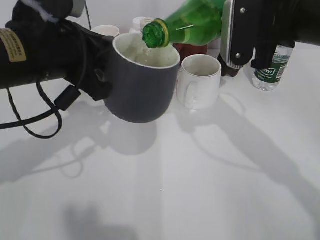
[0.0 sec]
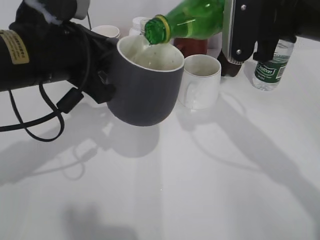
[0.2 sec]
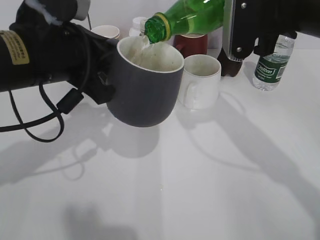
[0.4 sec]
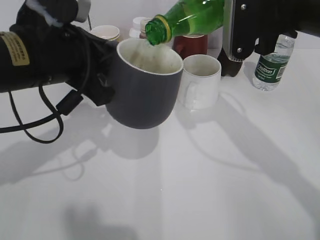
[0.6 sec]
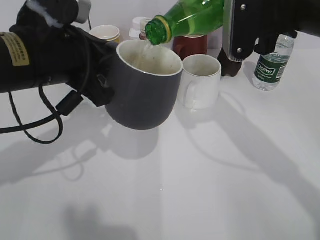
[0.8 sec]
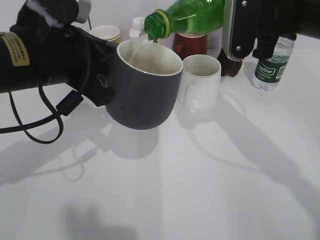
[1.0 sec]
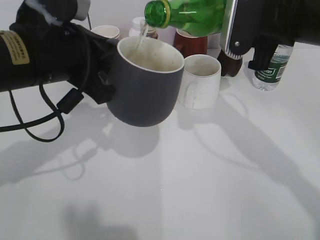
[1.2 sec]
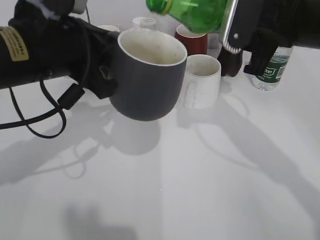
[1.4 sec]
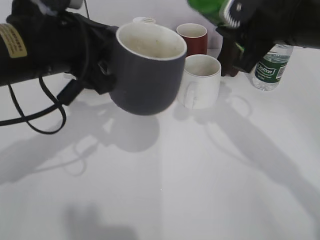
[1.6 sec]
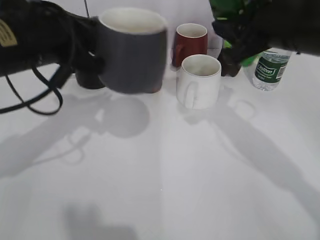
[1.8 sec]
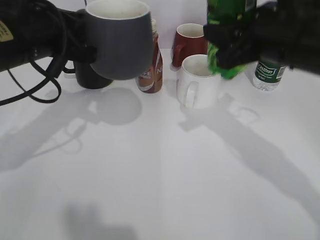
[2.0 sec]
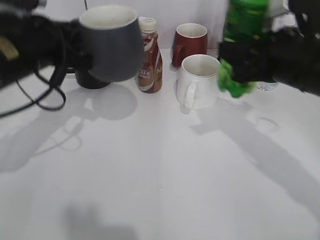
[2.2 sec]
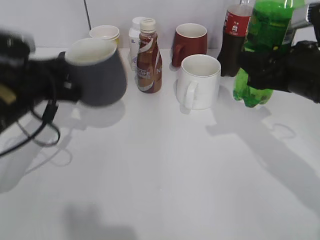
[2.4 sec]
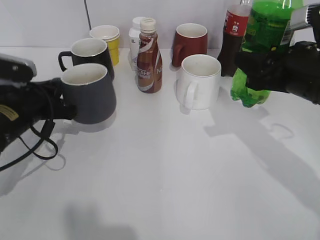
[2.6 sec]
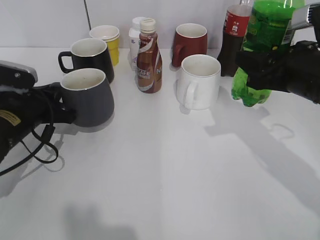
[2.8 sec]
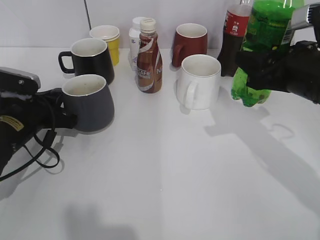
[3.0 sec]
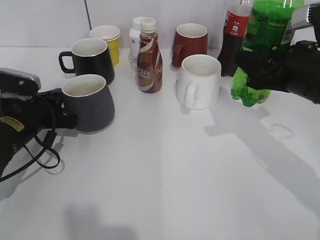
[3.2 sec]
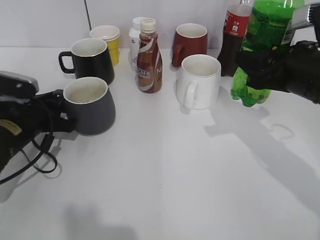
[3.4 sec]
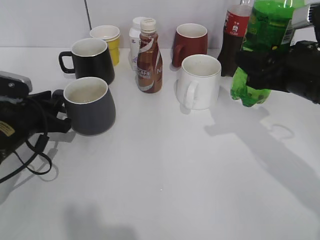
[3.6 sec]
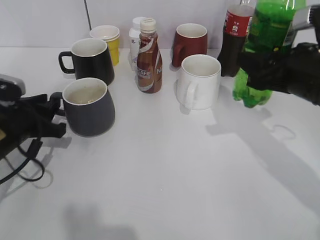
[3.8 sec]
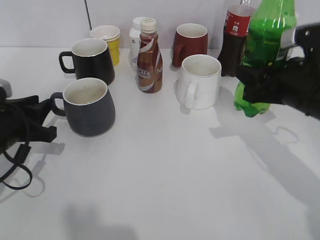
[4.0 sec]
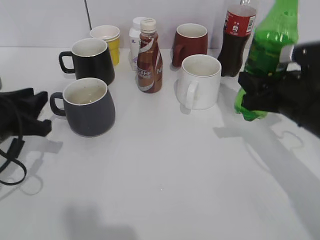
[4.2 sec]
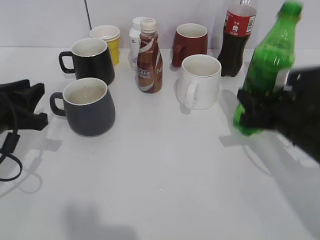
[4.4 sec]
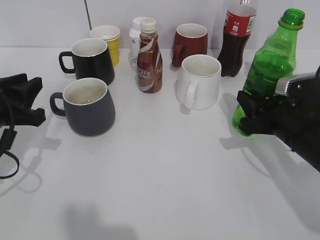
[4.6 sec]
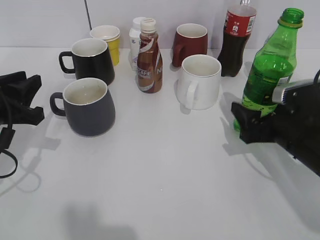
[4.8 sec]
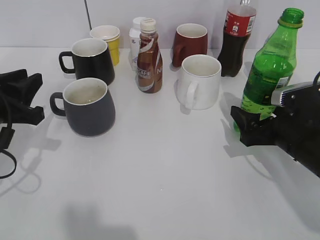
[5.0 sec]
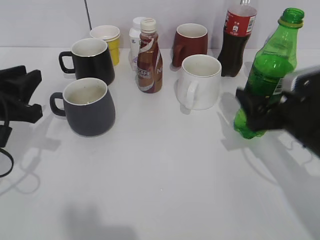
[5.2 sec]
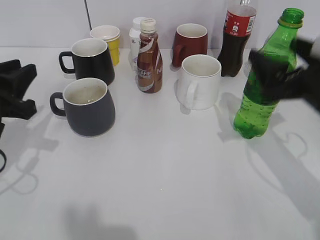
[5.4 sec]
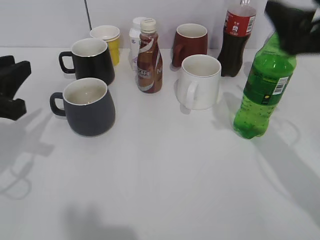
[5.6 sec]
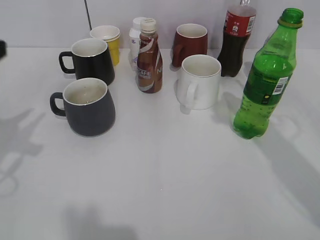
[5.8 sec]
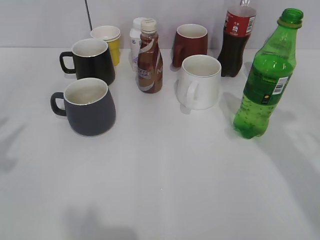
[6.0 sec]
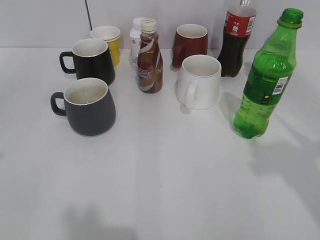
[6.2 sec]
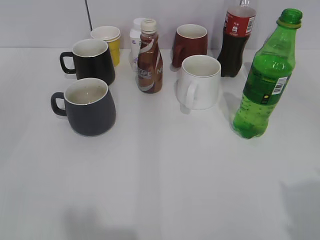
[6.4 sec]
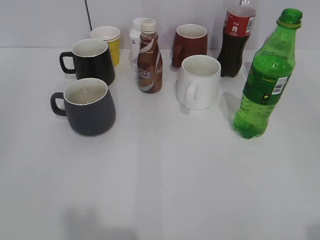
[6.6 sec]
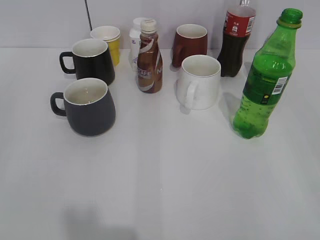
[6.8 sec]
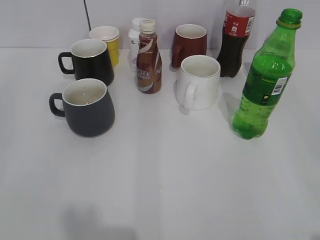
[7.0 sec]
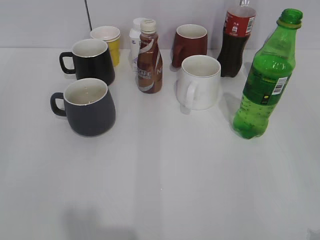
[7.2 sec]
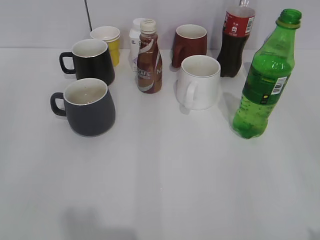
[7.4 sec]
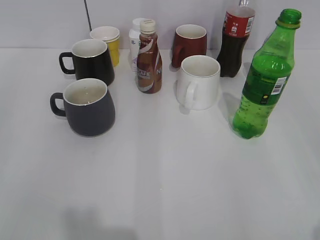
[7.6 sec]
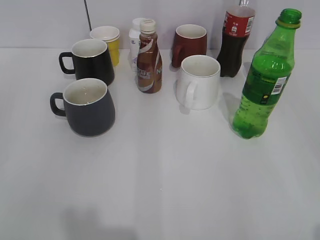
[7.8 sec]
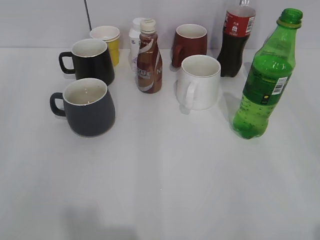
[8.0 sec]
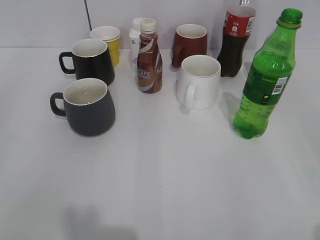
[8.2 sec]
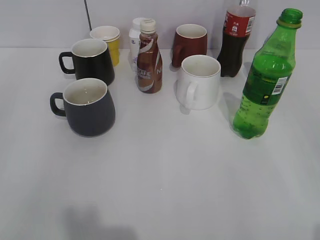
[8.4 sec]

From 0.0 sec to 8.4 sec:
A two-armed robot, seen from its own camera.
Step, from 1.6 sec to 3.8 sec: Place the grey cup on the table with left gripper.
Step, from 4.0 sec to 5.4 sec: Place the sprite bottle on the table with right gripper.
From 1.4 sec to 2.8 sec: The right gripper travels downward by approximately 5 cm. The left gripper travels downward and to the left by about 20 cm.
From 2.8 sec to 4.2 sec: The right gripper shifts approximately 5 cm downward. Meanwhile the left gripper moves backward, approximately 5 cm, and opens its fingers.
From 4.2 sec to 5.6 sec: The right gripper goes approximately 15 cm upward, and opens, while the left gripper heads upward, covering about 10 cm.
From 5.6 sec to 7.0 sec: Both grippers move backward, approximately 20 cm. The left gripper opens its fingers.

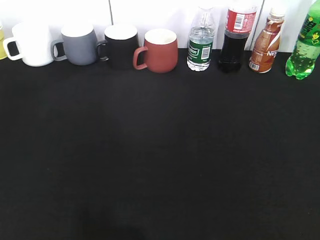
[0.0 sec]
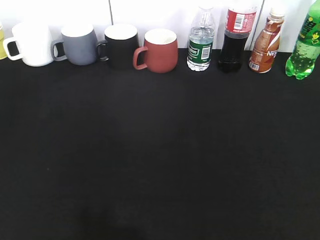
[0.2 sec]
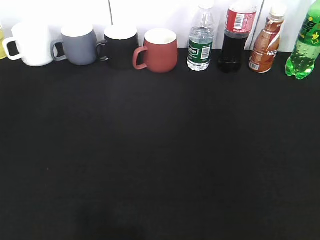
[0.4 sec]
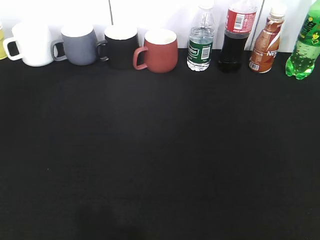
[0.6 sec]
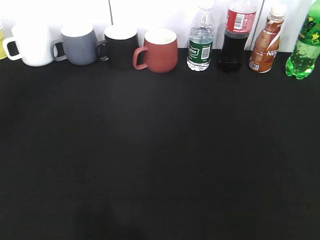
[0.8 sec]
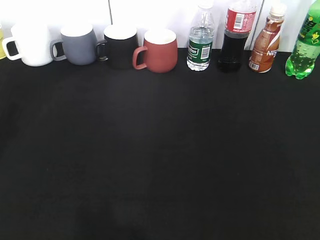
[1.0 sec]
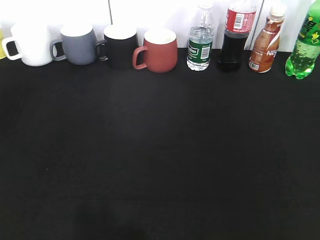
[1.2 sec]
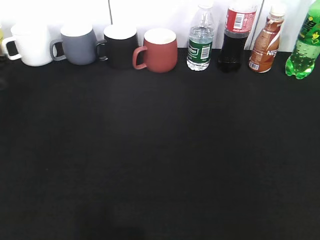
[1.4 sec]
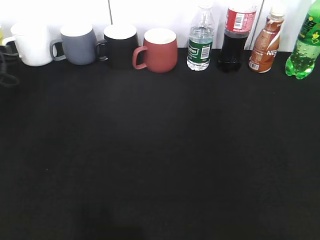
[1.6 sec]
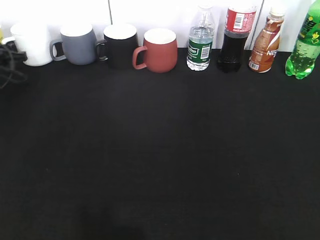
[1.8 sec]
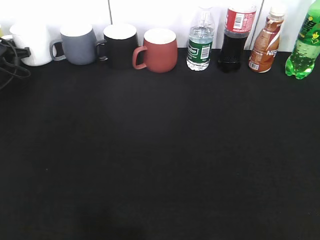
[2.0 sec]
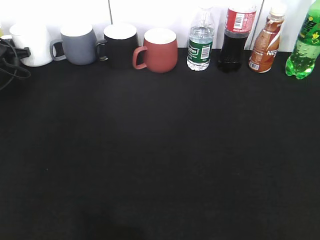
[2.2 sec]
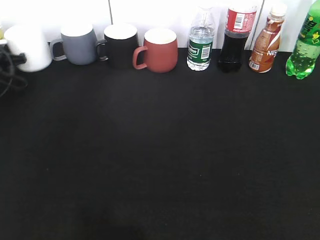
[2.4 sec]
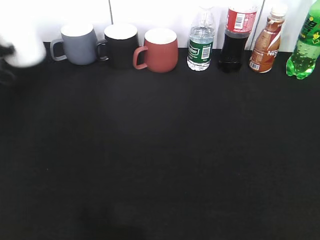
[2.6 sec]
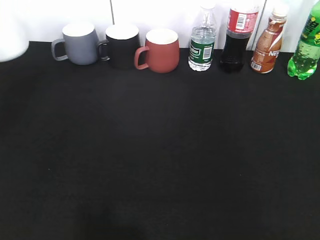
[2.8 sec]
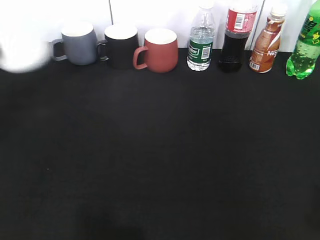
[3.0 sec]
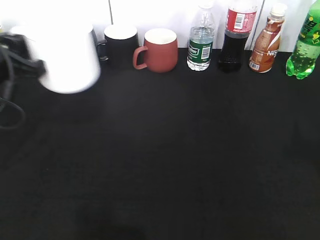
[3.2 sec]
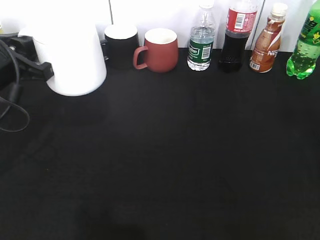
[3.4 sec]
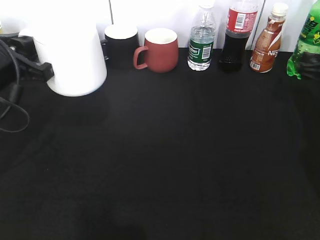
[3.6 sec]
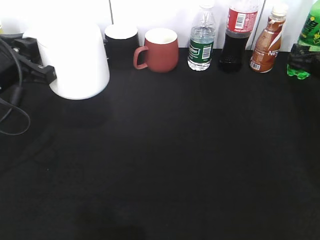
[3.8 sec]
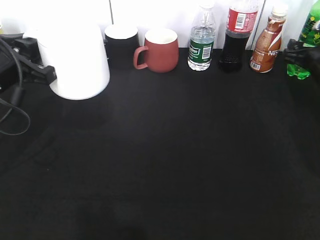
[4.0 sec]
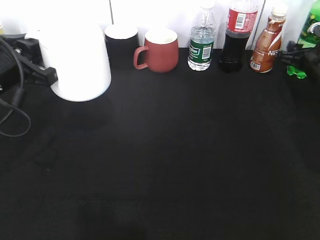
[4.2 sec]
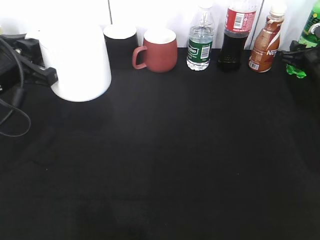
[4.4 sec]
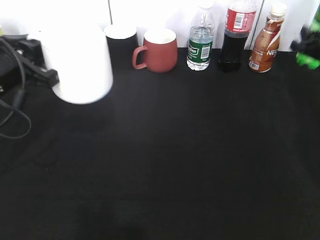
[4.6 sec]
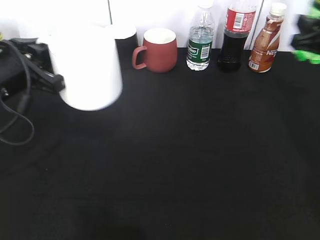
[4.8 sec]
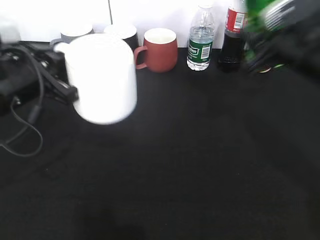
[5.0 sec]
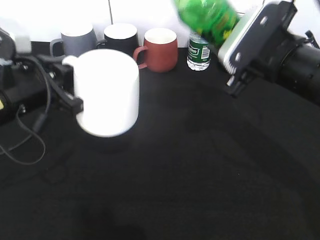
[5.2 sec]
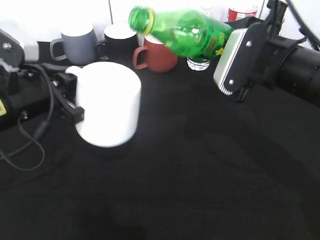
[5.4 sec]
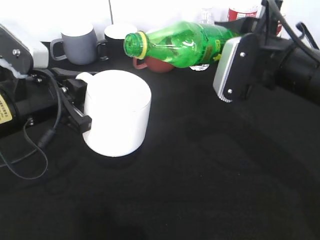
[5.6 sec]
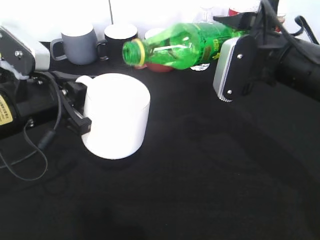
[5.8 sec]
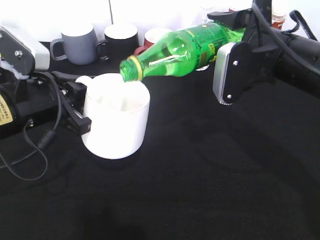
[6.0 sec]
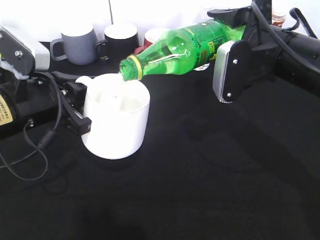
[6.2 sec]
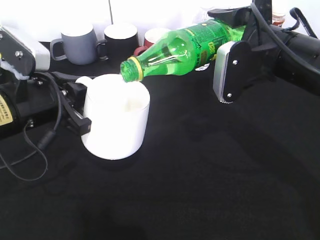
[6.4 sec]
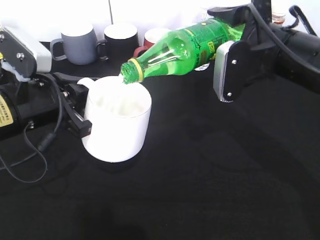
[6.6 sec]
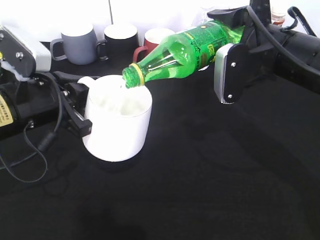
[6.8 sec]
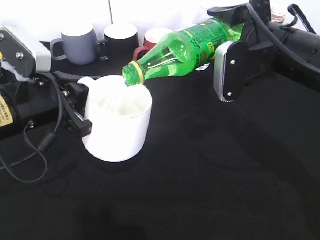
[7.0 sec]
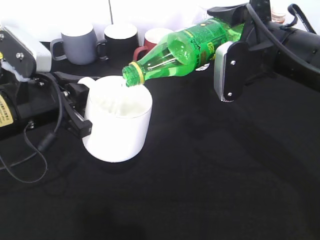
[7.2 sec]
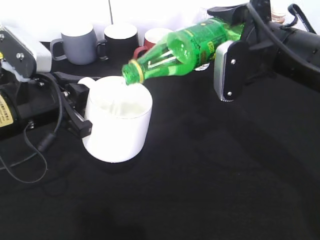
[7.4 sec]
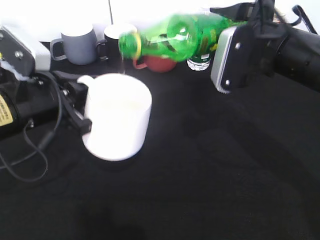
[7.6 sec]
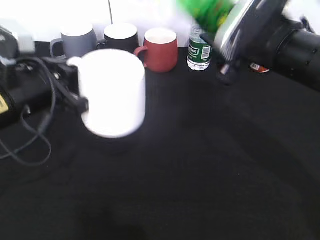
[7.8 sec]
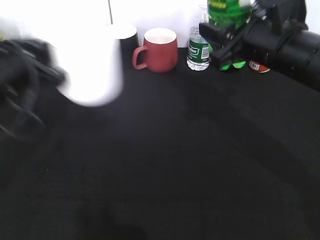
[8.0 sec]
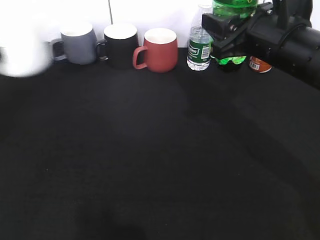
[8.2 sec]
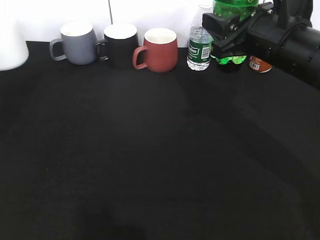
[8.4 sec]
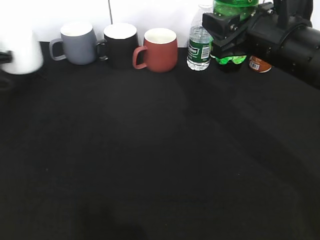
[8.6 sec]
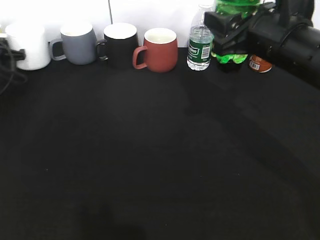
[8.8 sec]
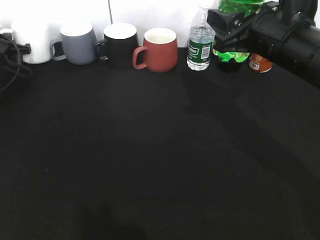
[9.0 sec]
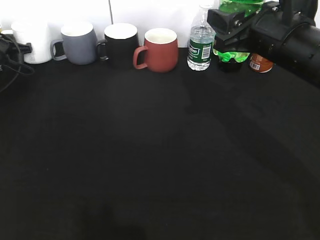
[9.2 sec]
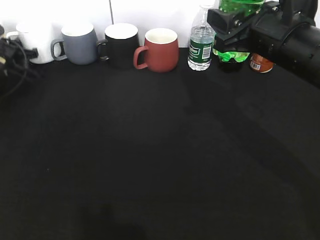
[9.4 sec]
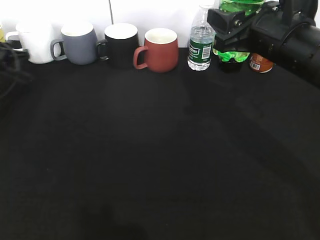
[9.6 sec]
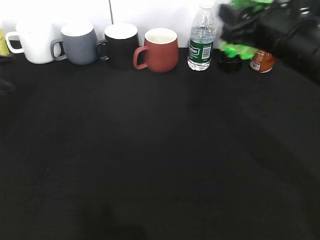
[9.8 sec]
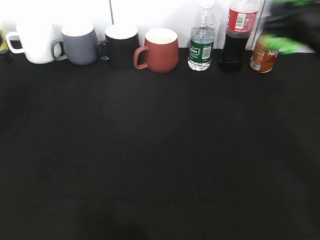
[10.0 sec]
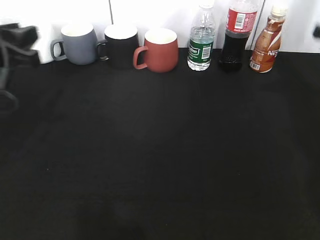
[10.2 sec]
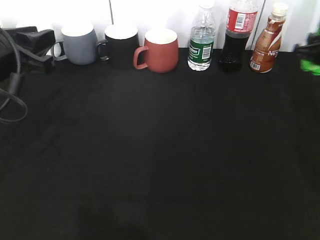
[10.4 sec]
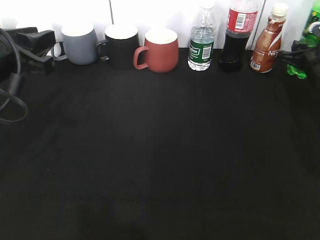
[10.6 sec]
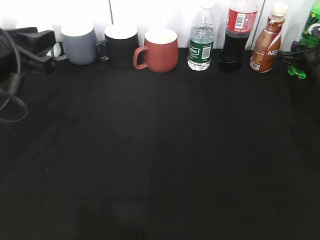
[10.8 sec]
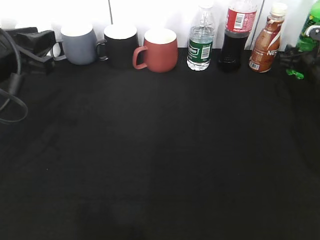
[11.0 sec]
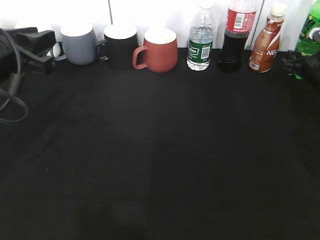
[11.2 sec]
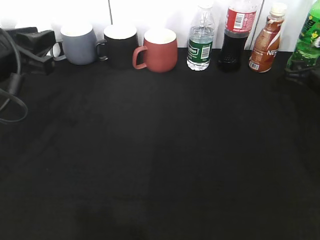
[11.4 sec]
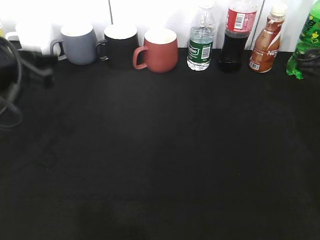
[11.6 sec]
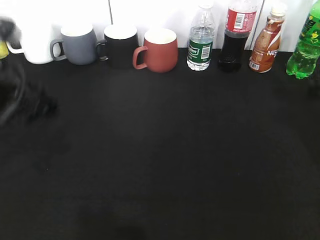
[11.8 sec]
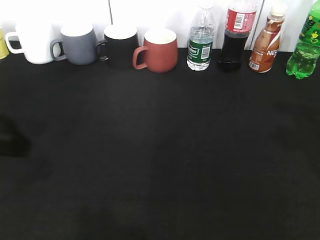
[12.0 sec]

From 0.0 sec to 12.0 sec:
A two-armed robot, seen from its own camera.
Step, from 2.4 sec to 3.4 sec: Lift the white cup with left gripper.
Step, from 3.6 sec to 4.2 sec: Grasp the bottle with sprite with right gripper.
Step, from 4.4 sec to 7.6 sec: Pour the sprite from bottle to cup with right gripper.
Step, from 7.8 sec to 11.2 sec: Place the sprite bottle on the table with right gripper.
From 0.0 sec to 1.6 sec: The left gripper goes approximately 40 cm forward, and closes its fingers.
From 1.6 sec to 3.0 sec: The left gripper is displaced backward, upward and to the right by approximately 20 cm, and closes its fingers.
From 3.0 sec to 4.4 sec: The left gripper is displaced to the right by approximately 5 cm; the right gripper heads forward and downward, covering approximately 50 cm, and closes its fingers.
From 4.4 sec to 6.0 sec: The left gripper ends up about 5 cm from where it was; the right gripper shifts approximately 30 cm to the left, backward and upward.
From 6.0 sec to 7.6 sec: The grippers make only small movements.
From 7.6 sec to 9.0 sec: The left gripper moves forward and to the left, roughly 35 cm.
From 9.0 sec to 10.4 sec: The left gripper shifts some 30 cm backward, to the right and upward, while the right gripper heads to the right, forward and downward, covering about 20 cm.
From 10.4 sec to 12.0 sec: The right gripper is displaced backward and upward by about 20 cm, and opens up, while the left gripper heads backward, covering some 5 cm, and opens its fingers.

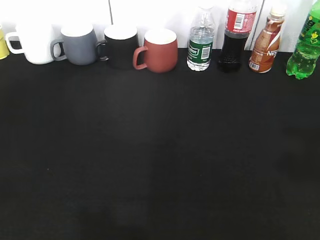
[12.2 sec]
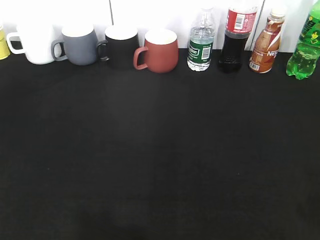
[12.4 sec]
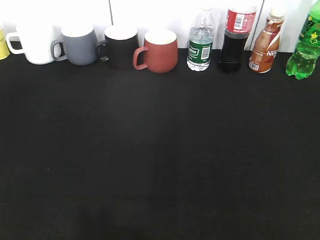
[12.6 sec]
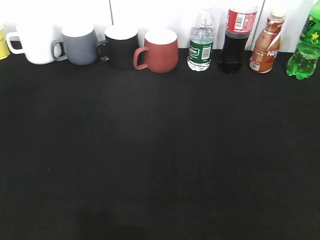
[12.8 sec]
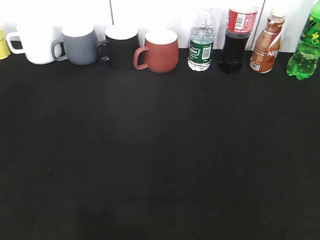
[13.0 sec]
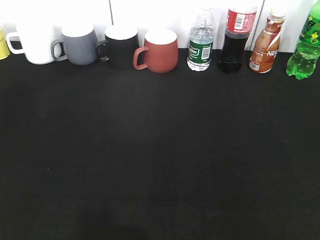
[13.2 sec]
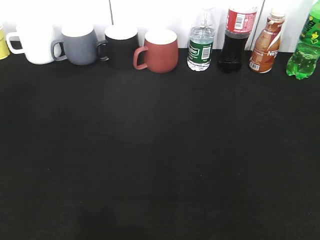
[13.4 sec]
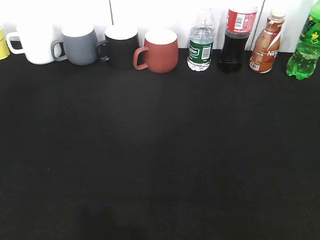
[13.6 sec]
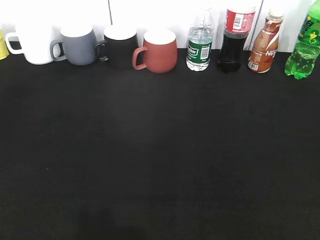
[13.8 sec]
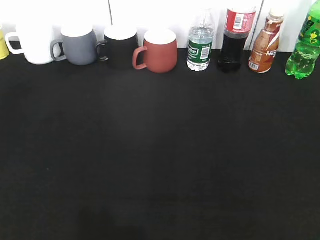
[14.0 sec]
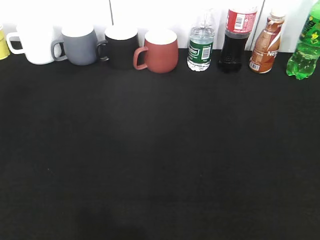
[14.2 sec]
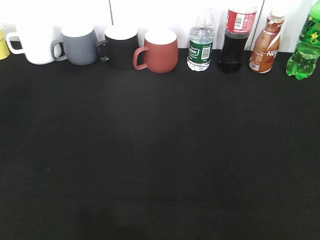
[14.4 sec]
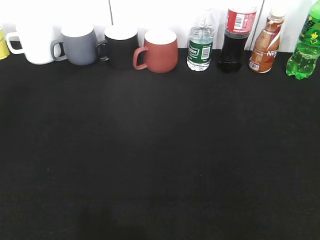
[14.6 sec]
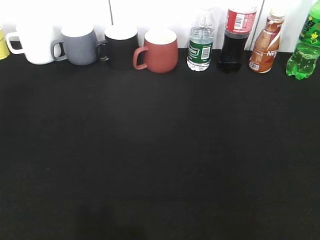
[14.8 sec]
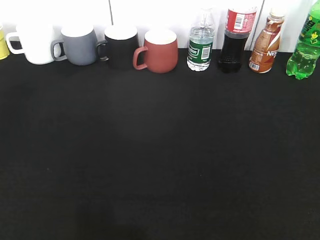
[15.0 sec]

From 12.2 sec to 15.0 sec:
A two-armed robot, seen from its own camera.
From 12.2 sec to 13.6 sec: The right gripper is displaced backward by about 15 cm. The left gripper moves backward, about 5 cm.
